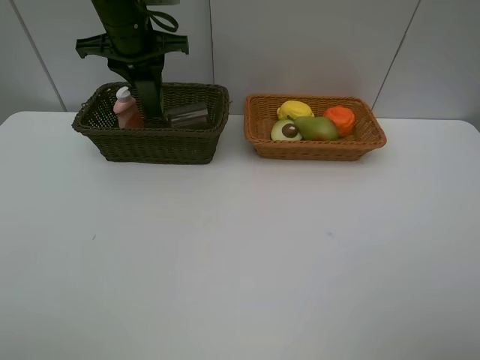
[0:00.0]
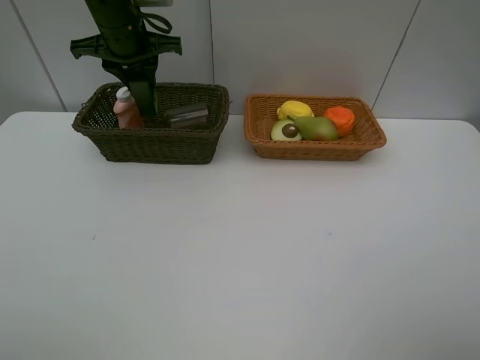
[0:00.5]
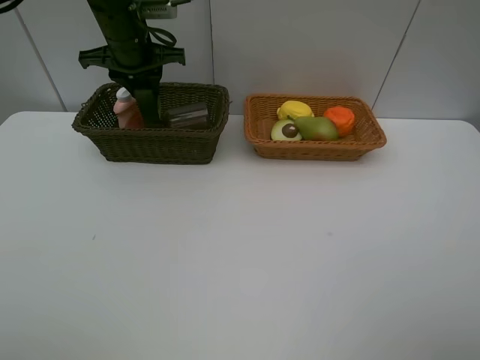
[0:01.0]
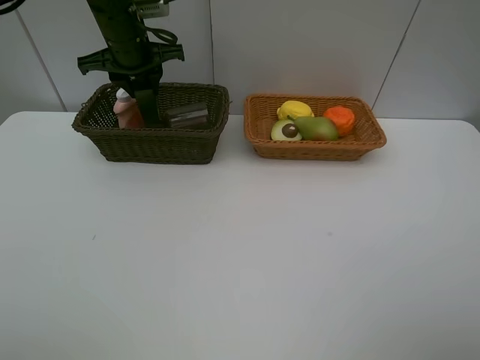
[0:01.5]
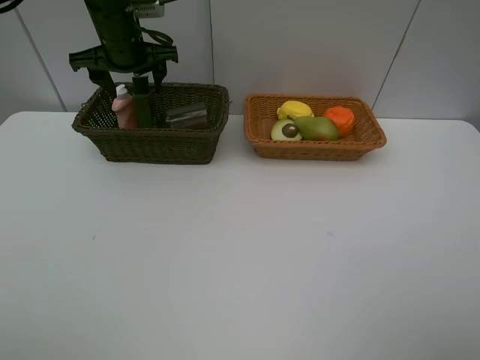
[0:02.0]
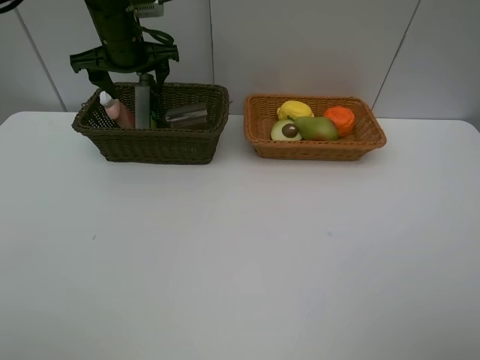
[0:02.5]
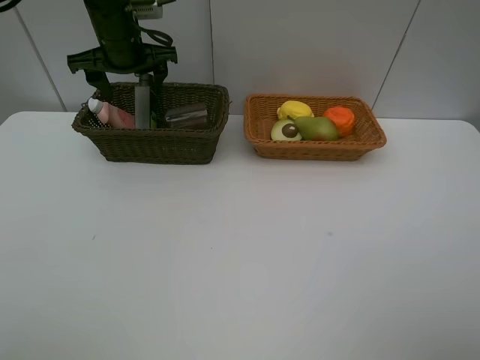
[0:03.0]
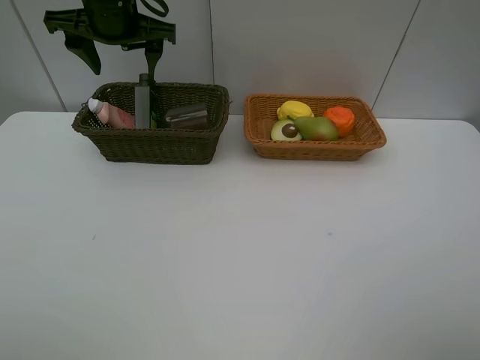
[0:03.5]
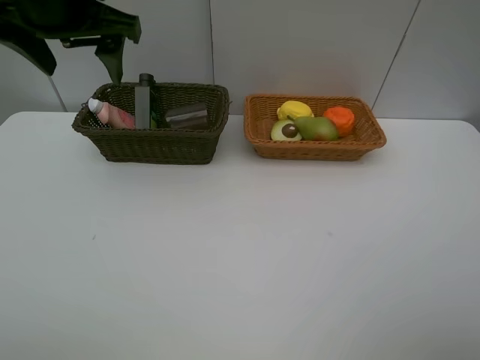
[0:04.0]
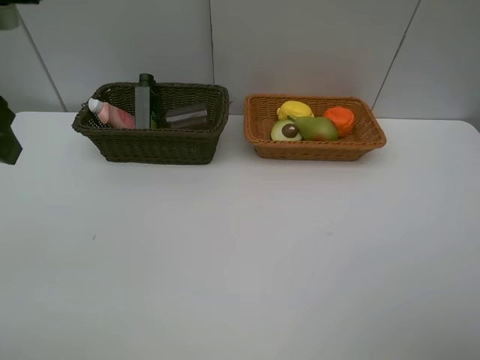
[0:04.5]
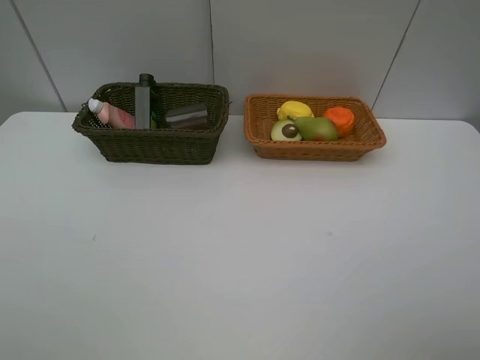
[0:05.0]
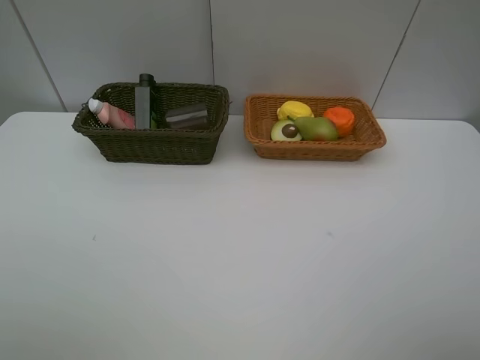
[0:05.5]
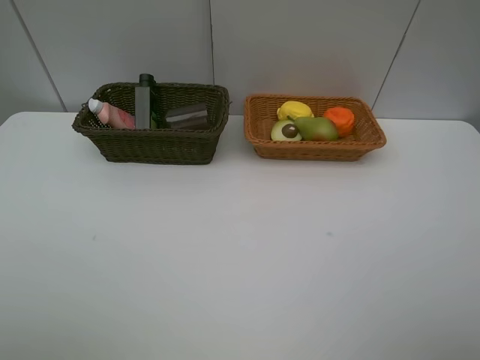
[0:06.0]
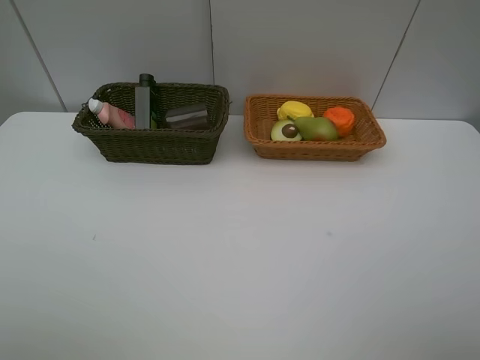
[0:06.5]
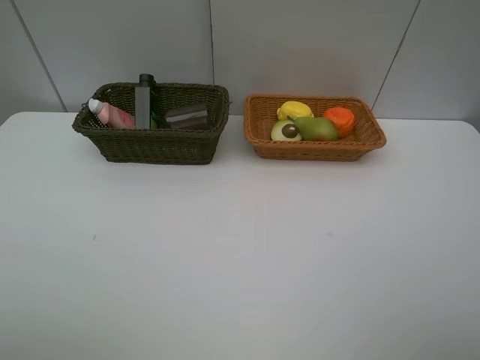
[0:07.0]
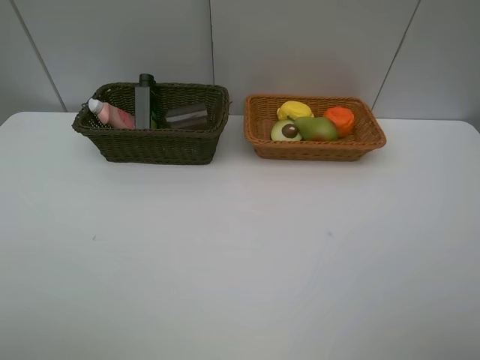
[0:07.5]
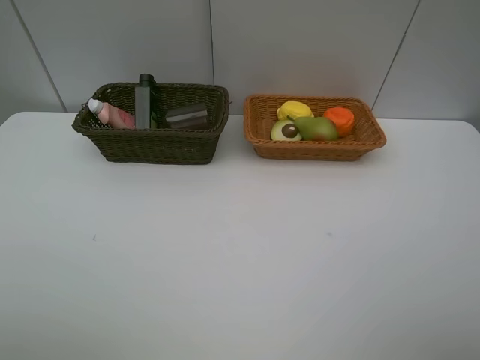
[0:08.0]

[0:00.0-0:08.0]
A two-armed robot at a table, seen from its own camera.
Task of the whole recording: Place multiple objects separately in different baskets.
Step, 0:00.0 to 0:03.0: Place the hard facial cleanser in the dark basket with left gripper.
0:00.0 to 0:02.0: The left gripper opens up.
0:02.0 to 0:04.0: The left gripper travels backward and upward by roughly 20 cm.
0:04.0 to 0:06.0: The left gripper moves backward and to the left, approximately 30 cm.

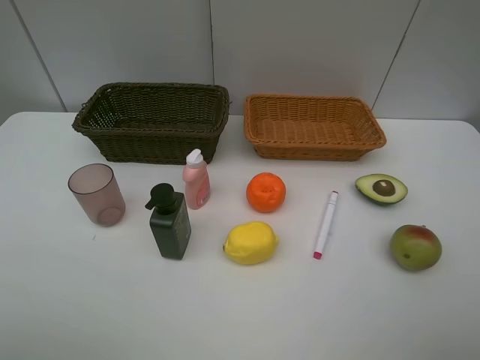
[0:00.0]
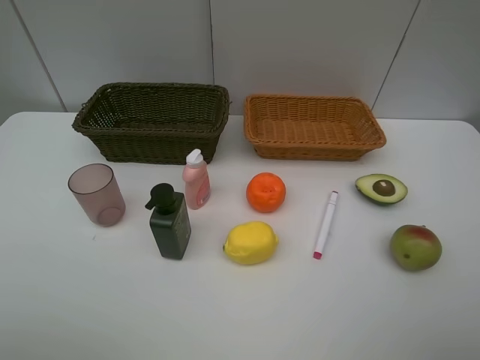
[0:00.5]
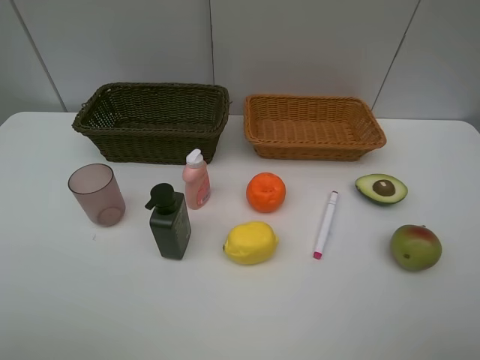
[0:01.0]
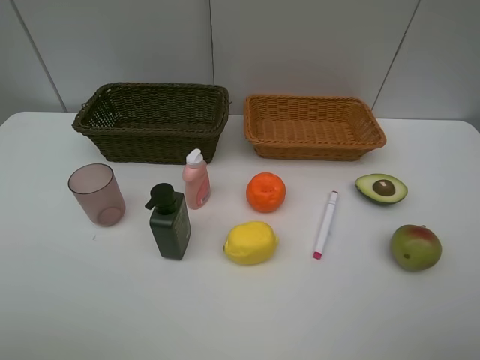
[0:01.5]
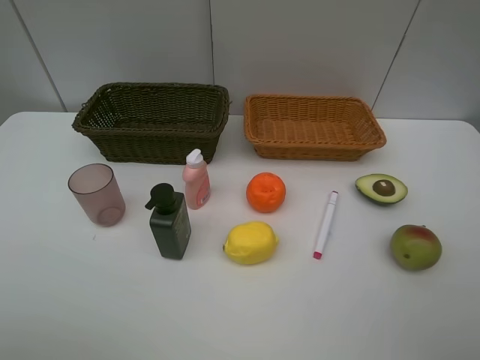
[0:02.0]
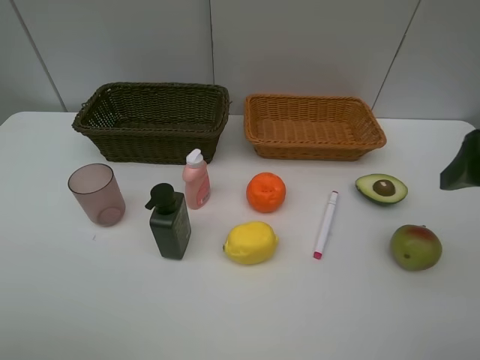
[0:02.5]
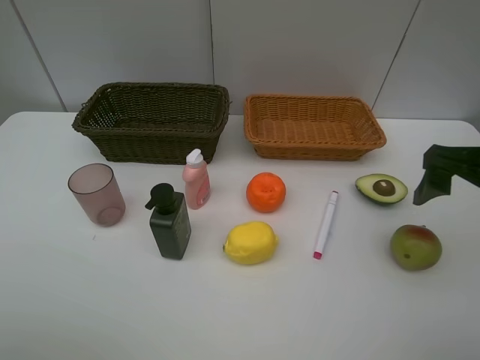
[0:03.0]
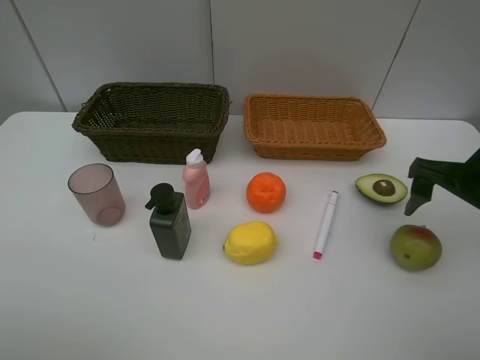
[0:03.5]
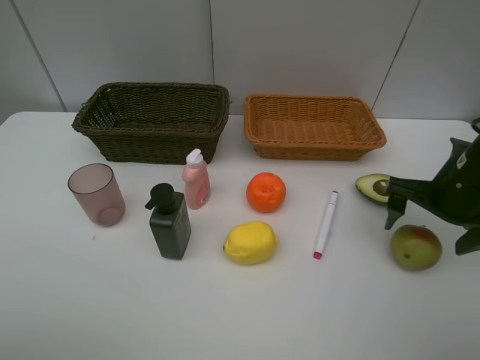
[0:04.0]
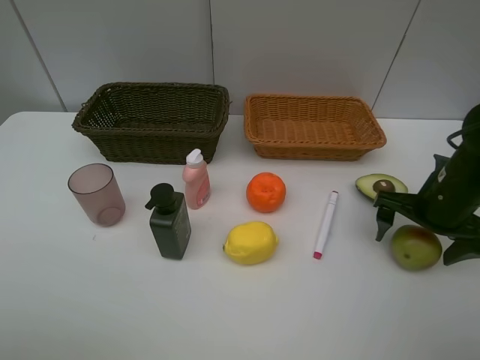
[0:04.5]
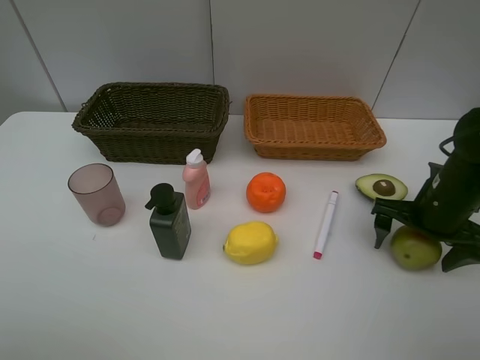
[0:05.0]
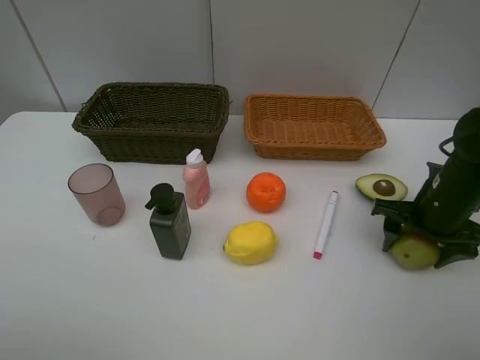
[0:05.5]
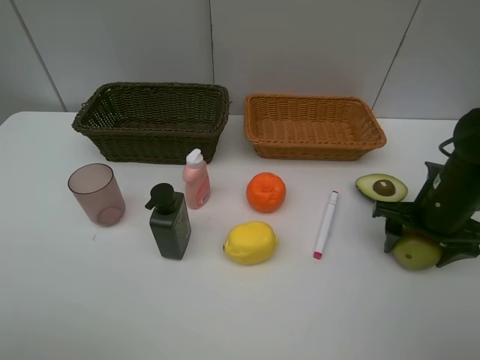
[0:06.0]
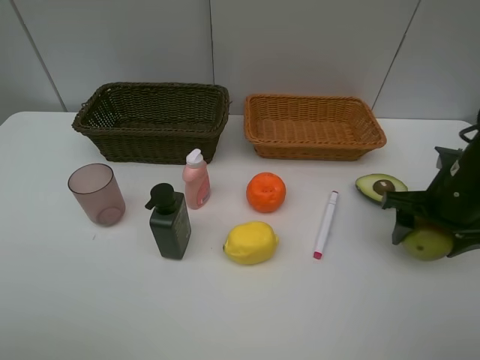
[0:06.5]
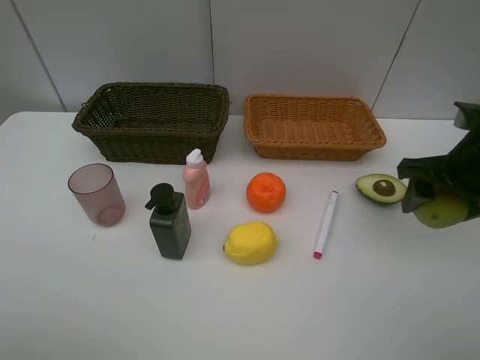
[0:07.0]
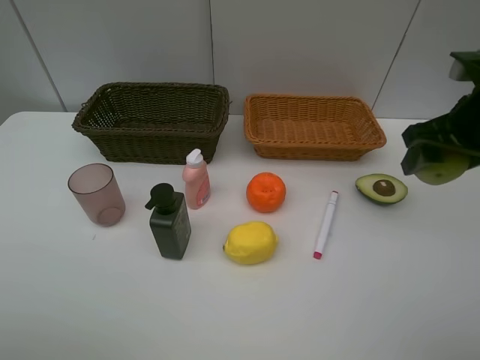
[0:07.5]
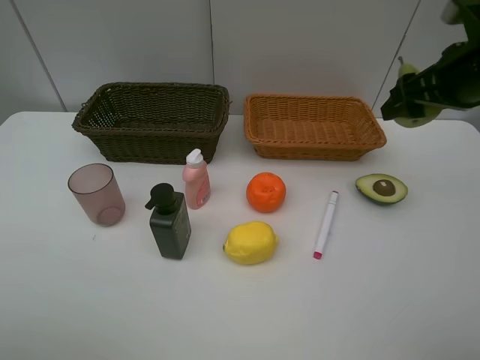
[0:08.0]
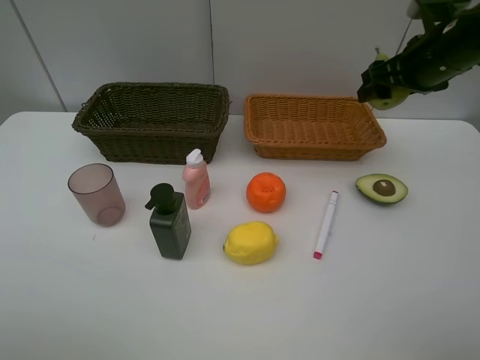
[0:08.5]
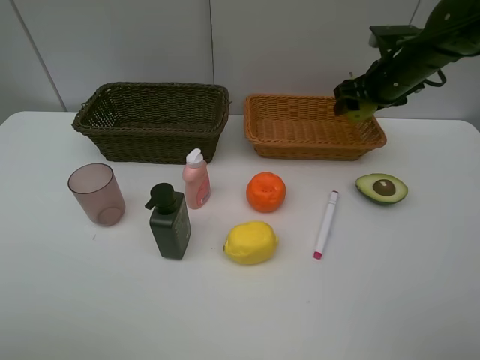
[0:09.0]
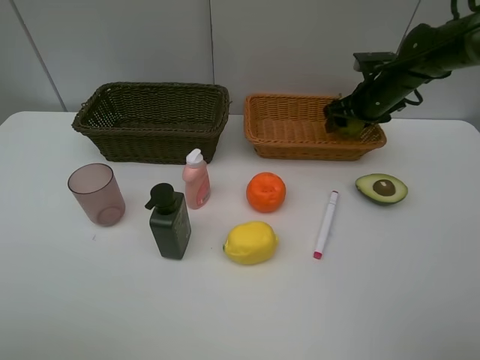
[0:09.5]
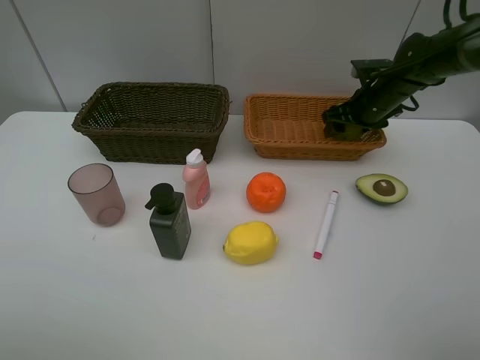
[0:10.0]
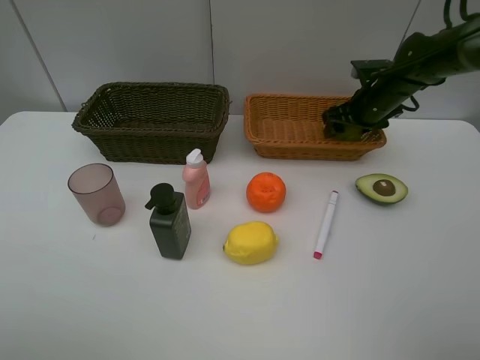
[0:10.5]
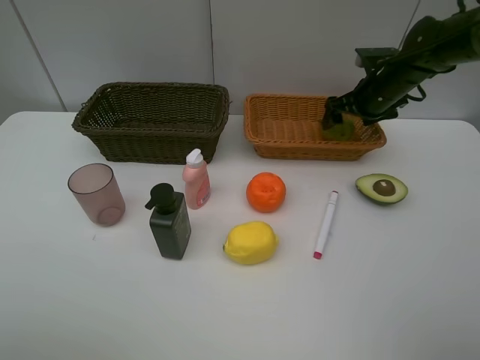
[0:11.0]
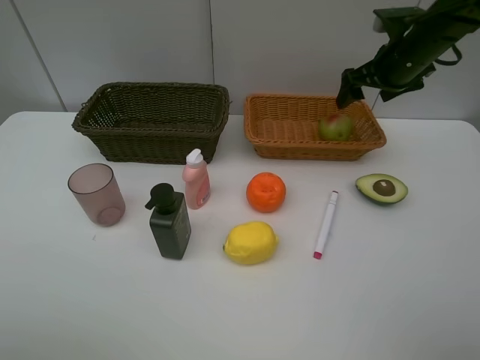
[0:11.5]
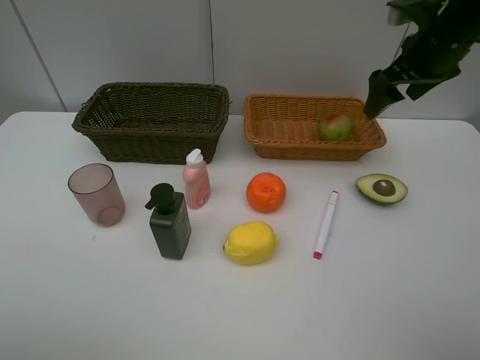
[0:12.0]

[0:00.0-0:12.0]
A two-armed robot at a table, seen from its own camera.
Task of the whole recording: Place multiple objects separately in different baskets.
Step, 0:00.0 to 0:06.0: Pick up the pear with right gripper.
Step, 0:06.5 to 0:11.0: Place the pear in the light basket with right gripper.
0:02.0 to 0:04.0: The right gripper is displaced forward and downward by about 25 cm.
0:04.0 to 0:06.0: The grippers move only a little.
0:06.0 to 0:08.0: The right gripper heads upward, covering roughly 15 cm.
0:08.0 to 0:10.0: The right gripper travels forward and downward by approximately 20 cm.
0:10.0 to 0:12.0: The right gripper shifts about 15 cm upward and backward.

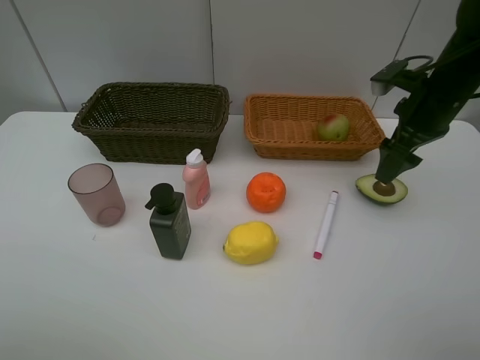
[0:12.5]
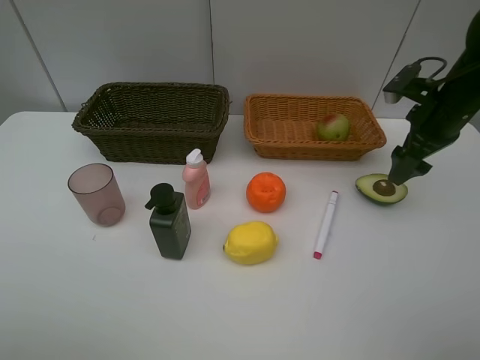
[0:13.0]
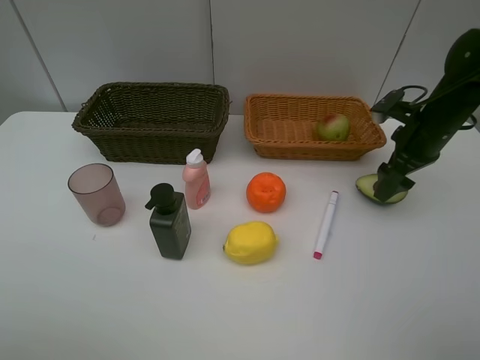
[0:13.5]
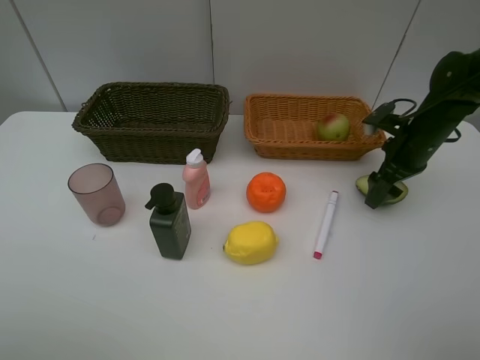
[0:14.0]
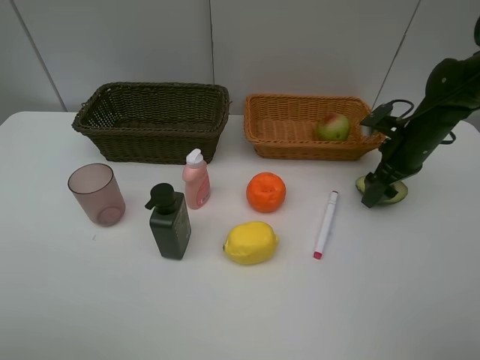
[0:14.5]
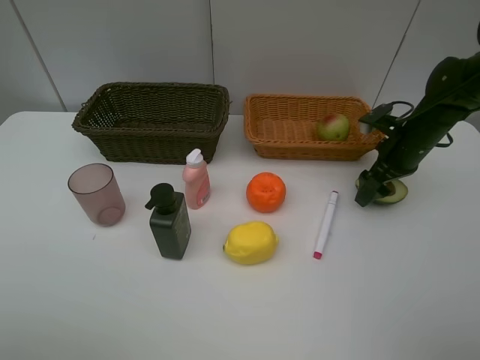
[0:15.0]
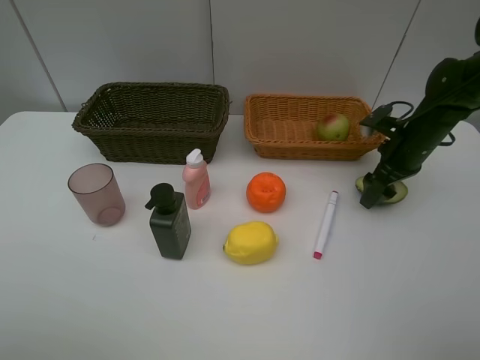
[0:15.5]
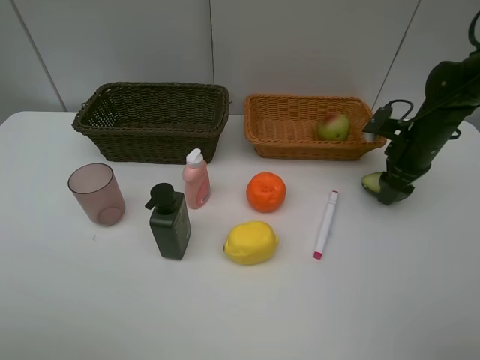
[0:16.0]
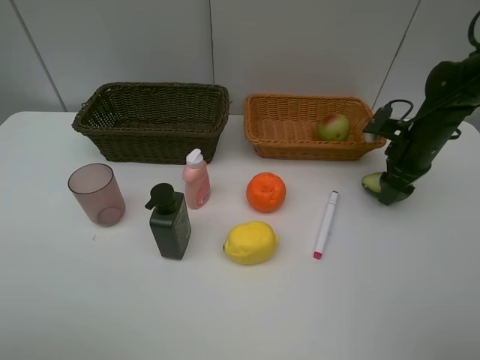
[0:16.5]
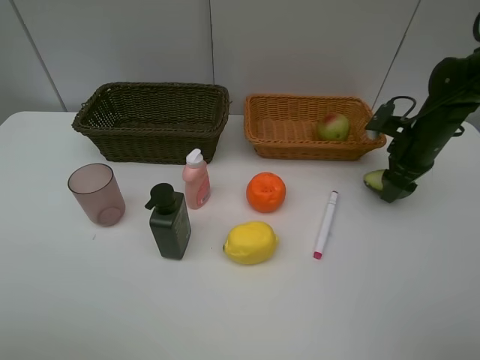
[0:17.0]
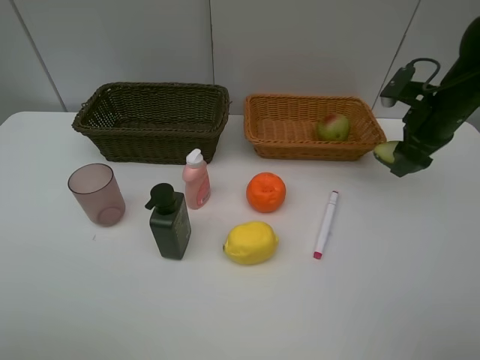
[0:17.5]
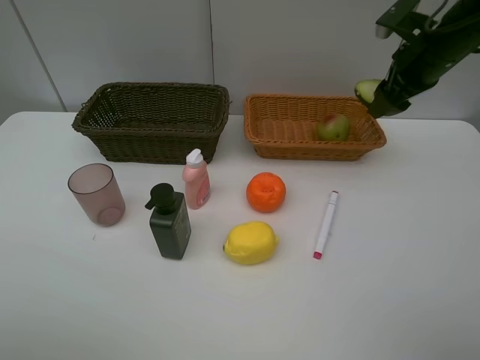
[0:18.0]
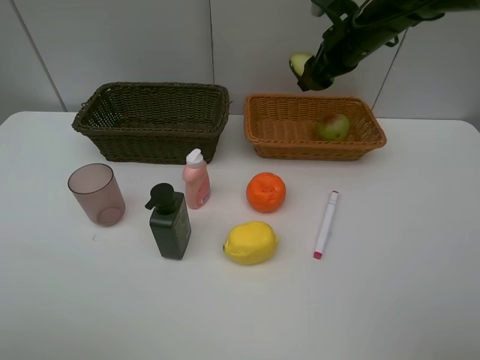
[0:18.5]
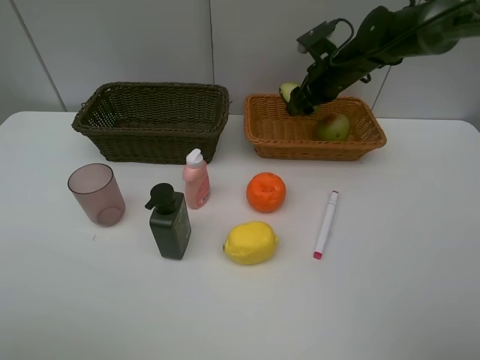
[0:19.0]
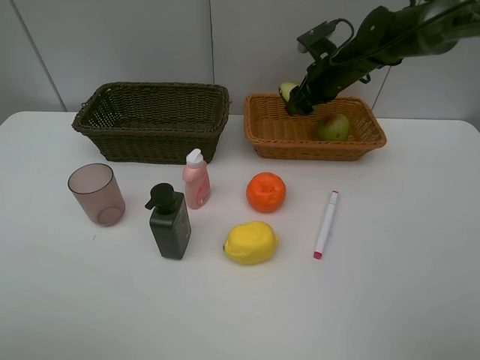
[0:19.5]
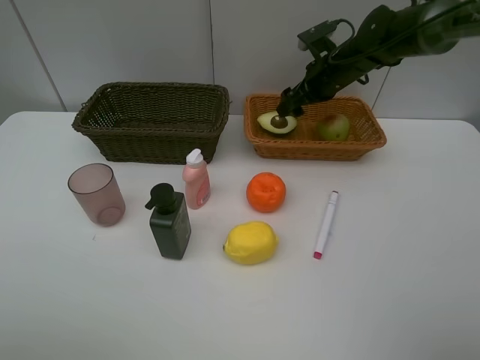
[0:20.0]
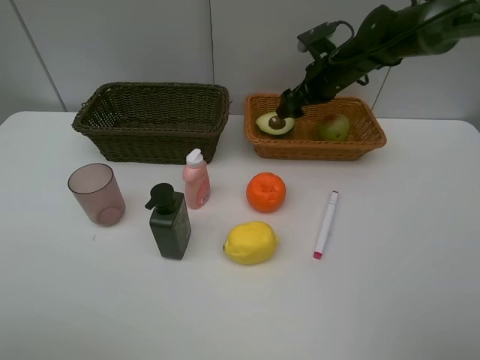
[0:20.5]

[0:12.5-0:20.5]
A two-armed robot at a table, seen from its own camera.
Task of the whole recording: Place multiple objects separately in different baskets.
Step, 0:12.5 to 0:17.0: Pick up the avocado with right gripper.
Step, 0:17.5 to 0:20.5: Place the avocado in the light basket with right gripper.
0:12.5 to 0:14.5: The right gripper moves downward, roughly 10 cm.
0:14.5 to 0:16.5: The right gripper closes up.
0:16.5 to 0:18.5: The right gripper heads upward, to the left and forward, covering some 20 cm.
0:18.5 to 0:20.5: The right gripper shifts about 5 cm downward, and opens its fingers.
